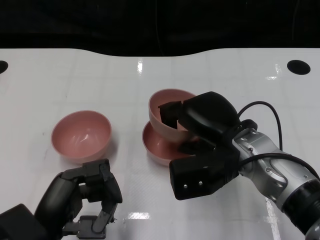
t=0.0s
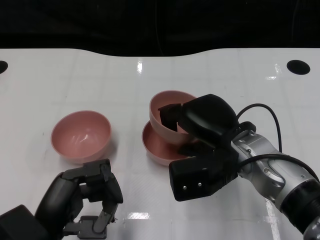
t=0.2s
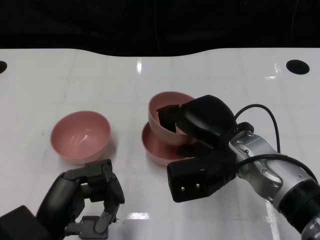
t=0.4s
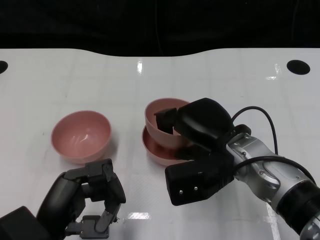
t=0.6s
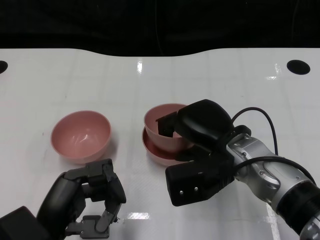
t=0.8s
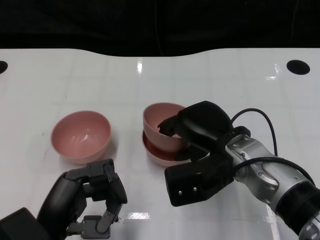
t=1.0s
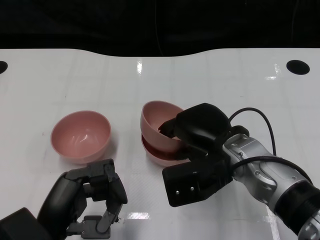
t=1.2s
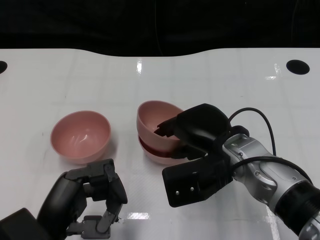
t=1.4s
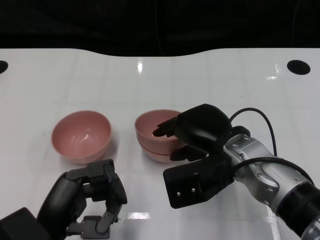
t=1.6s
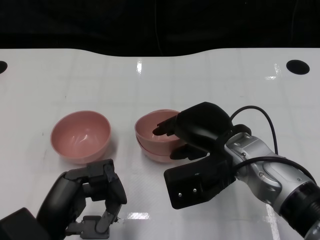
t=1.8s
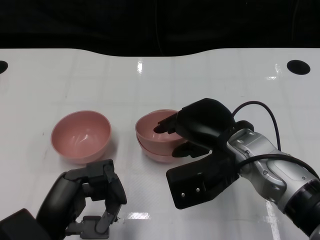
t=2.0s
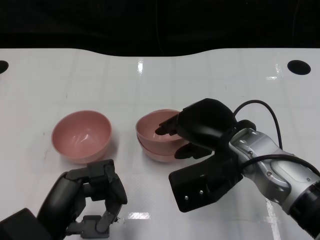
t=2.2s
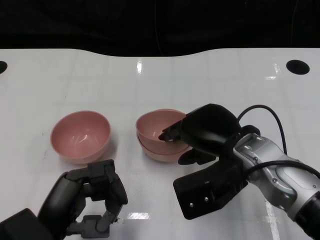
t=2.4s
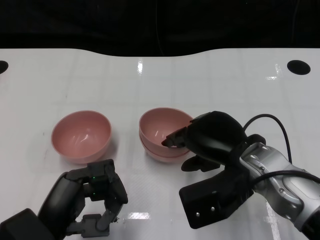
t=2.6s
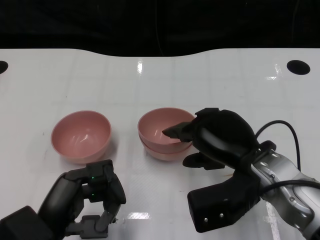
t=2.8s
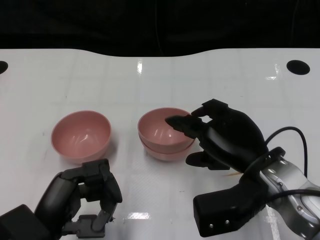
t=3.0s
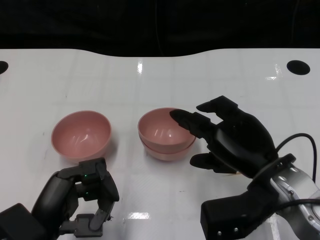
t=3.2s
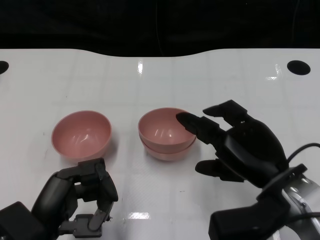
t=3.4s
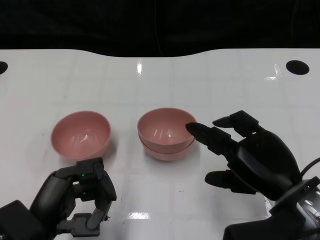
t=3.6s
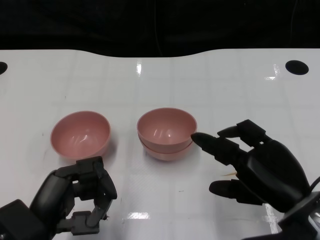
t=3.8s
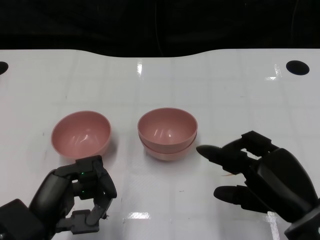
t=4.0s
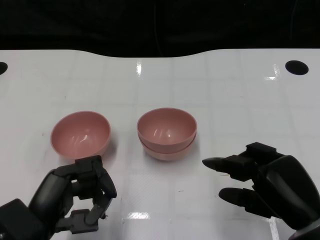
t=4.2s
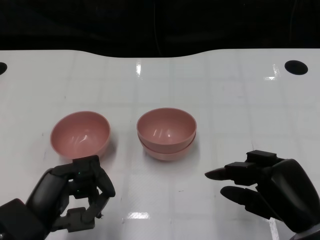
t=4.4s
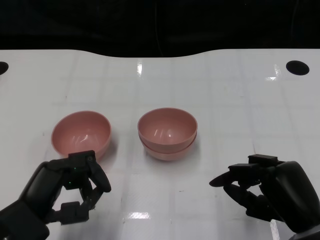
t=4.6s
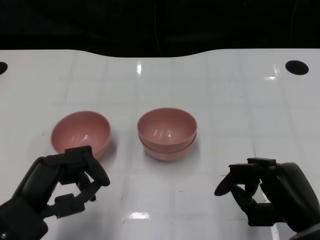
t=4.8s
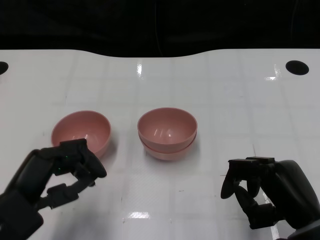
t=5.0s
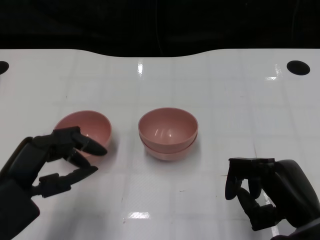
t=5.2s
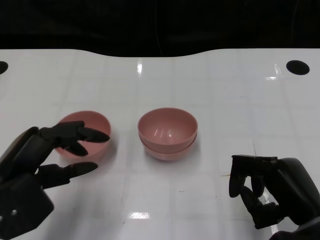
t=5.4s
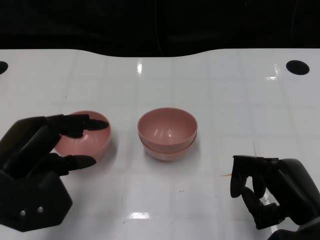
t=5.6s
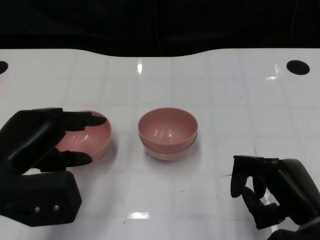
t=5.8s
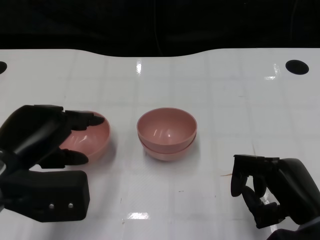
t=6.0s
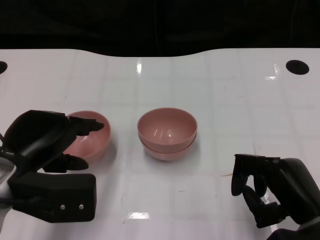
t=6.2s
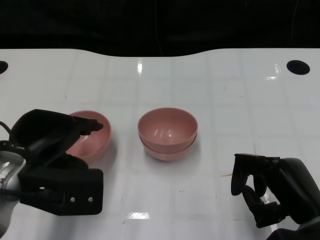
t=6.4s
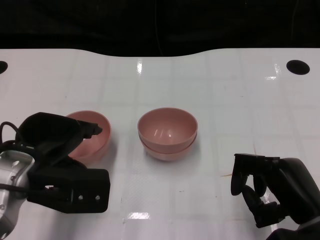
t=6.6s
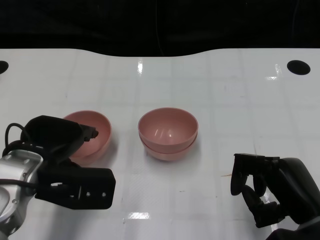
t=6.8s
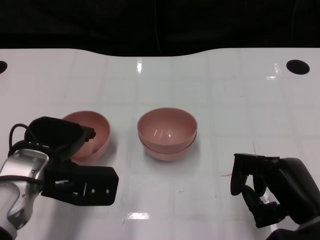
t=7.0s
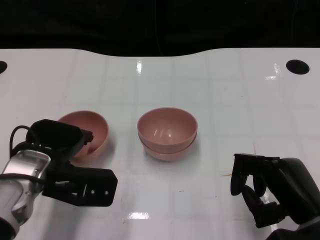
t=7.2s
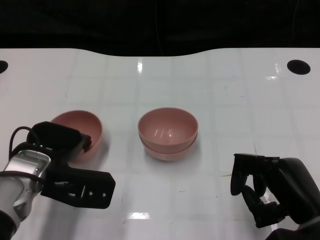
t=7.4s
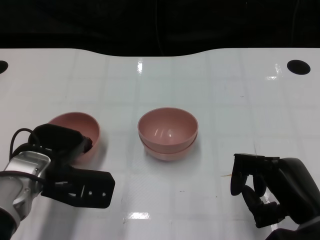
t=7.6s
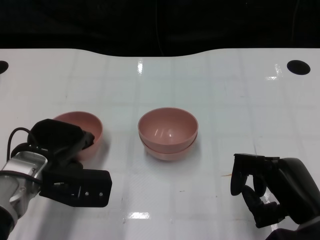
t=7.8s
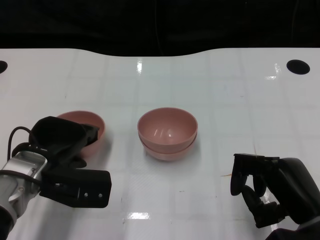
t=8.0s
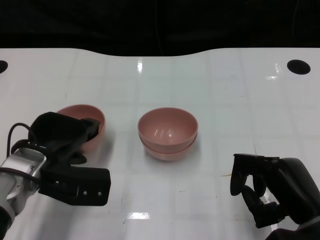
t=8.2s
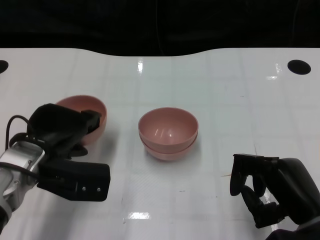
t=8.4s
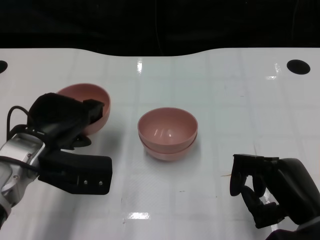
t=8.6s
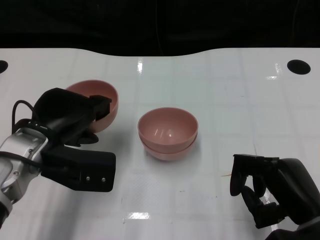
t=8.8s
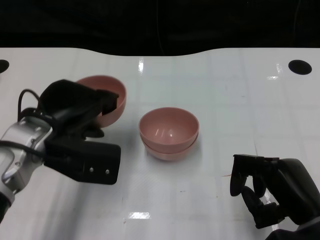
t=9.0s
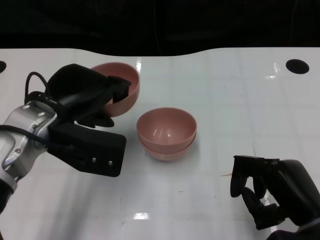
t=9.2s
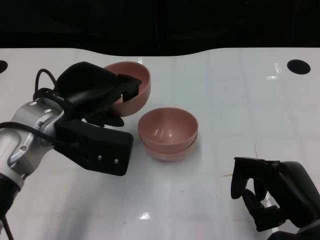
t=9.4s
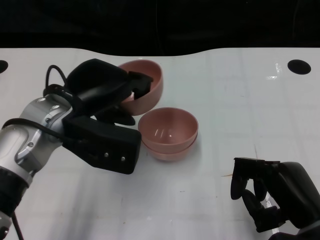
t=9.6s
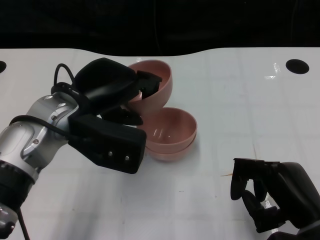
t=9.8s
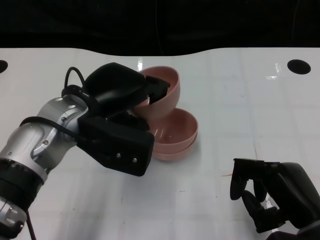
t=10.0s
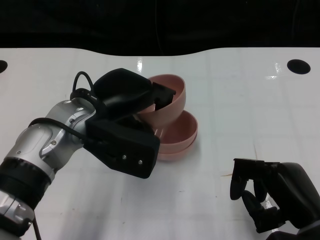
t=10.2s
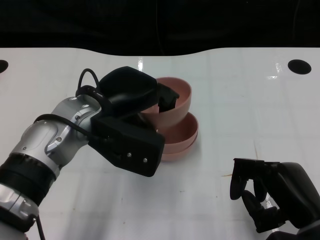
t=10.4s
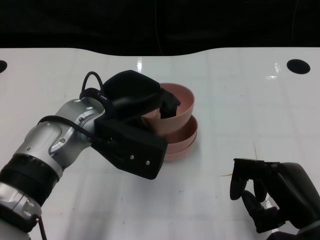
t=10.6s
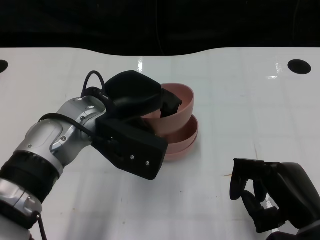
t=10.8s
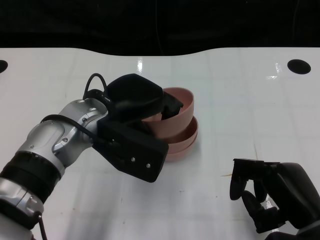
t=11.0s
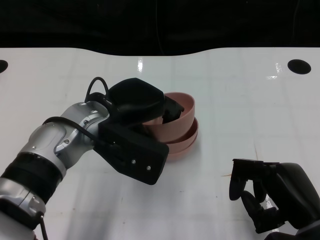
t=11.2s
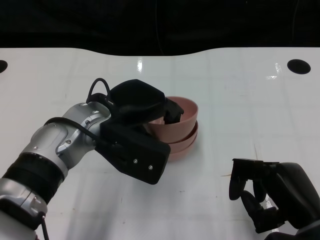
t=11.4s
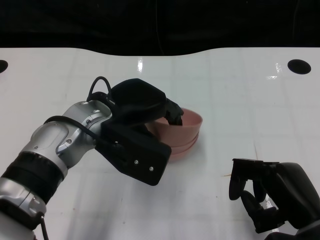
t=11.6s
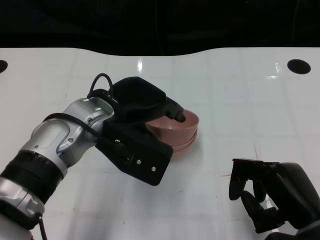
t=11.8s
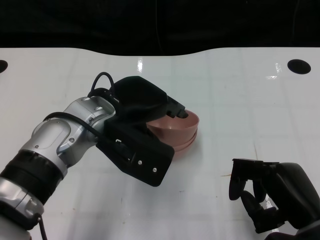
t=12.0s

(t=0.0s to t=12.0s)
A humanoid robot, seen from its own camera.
Task of the whole recording: Pick up the bowl on one side of the table and place it on top of the middle bowl, then pick up the bowl on the other side of the table and place it on top of the middle bowls.
Step, t=0.0s - t=3.0s: Place the bowl on the right onto the bowl in the middle with right gripper.
Step, t=3.2s - t=8.2s: Grasp the bowl on the left with the left gripper.
t=0.0s - t=1.6s: The hands stay close to where they were, moving slightly.
t=1.6s - t=3.0s: The right hand shifts by about 5 cm.
t=3.0s - t=4.4s: The right hand goes some 10 cm backward and to the right.
t=4.4s - t=6.0s: The left hand travels upward and forward by about 10 cm.
t=6.0s - t=7.6s: The left hand is displaced downward and forward by about 10 cm.
t=7.6s - t=9.0s: The left hand is displaced upward by roughly 5 cm.
t=9.0s - t=10.4s: The left hand is displaced to the right by about 5 cm.
t=10.4s - t=12.0s: The hands move only a little.

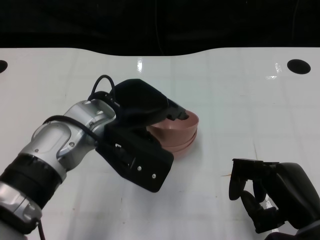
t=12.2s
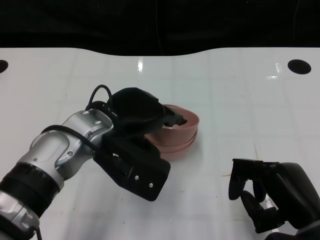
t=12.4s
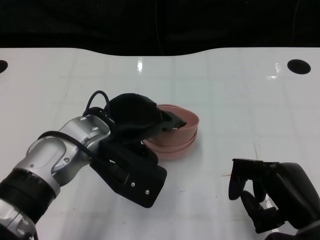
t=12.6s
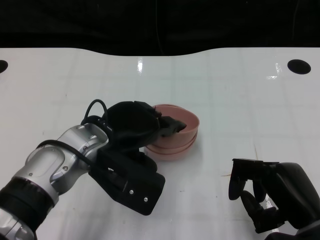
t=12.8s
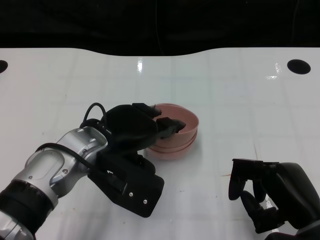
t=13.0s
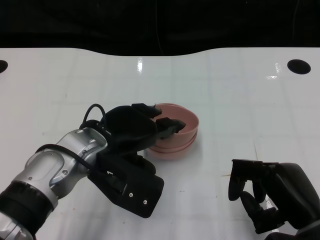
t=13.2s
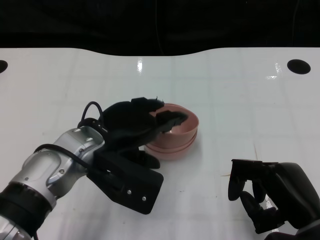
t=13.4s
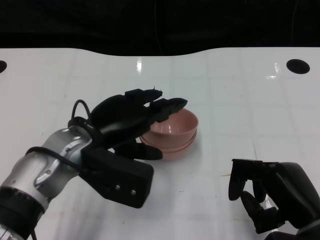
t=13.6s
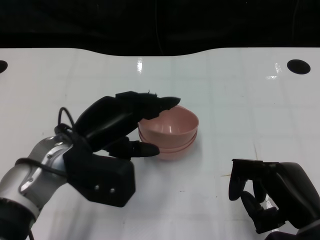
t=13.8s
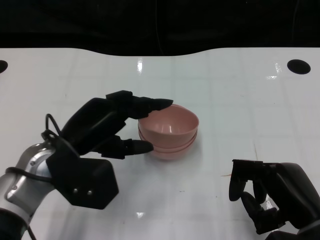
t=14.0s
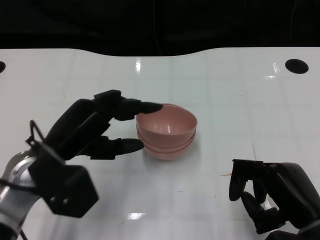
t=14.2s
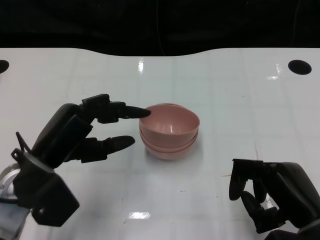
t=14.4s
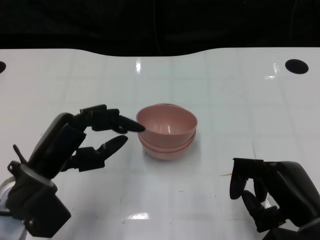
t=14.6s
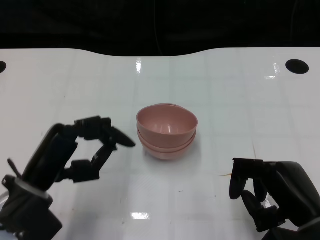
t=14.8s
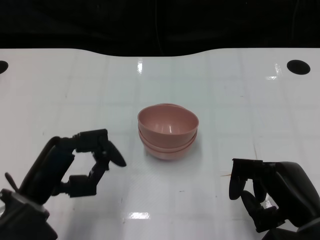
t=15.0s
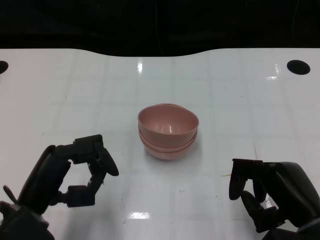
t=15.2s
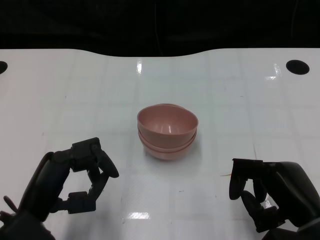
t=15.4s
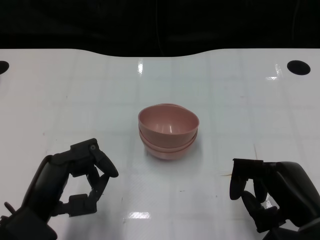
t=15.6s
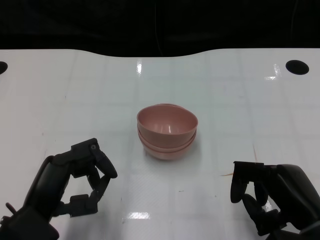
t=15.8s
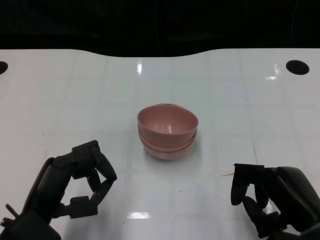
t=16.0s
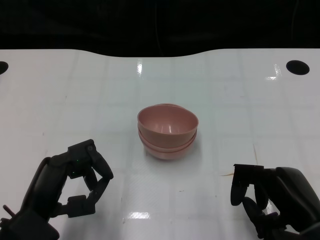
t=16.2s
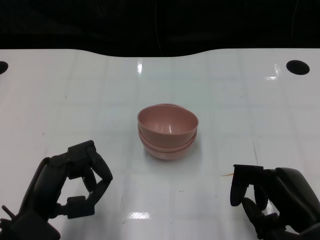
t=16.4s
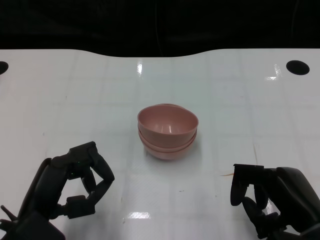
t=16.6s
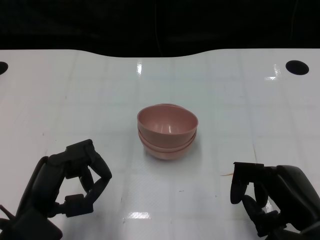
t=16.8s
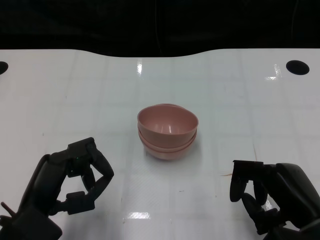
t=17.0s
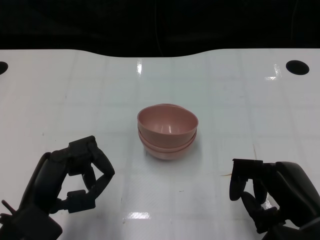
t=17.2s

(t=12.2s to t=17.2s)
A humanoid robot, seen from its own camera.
Task of the whole recording: Pick up the bowl on one side of the table and place it on top of the middle bowl, then pick up the bowl on the other side of the table and place it on top of the middle bowls.
t=12.2s - t=13.8s: The left hand shifts by roughly 5 cm.
t=13.8s - t=15.6s: The left hand heads backward and to the left, covering approximately 10 cm.
t=15.6s - t=17.2s: The hands move only a little.

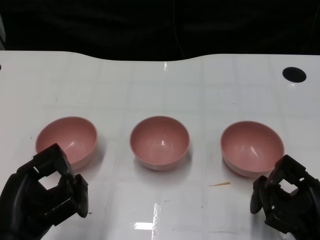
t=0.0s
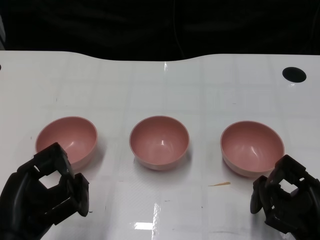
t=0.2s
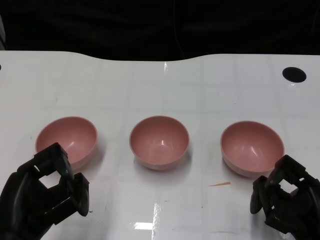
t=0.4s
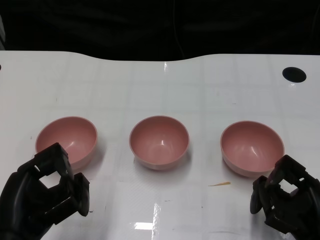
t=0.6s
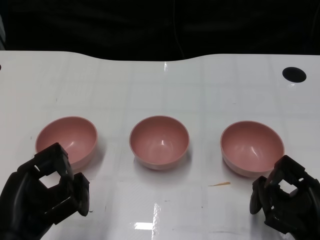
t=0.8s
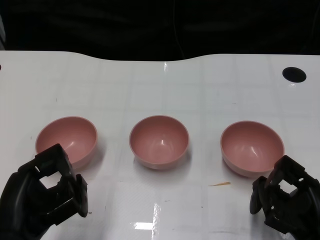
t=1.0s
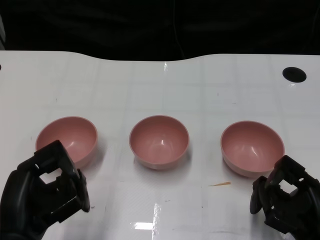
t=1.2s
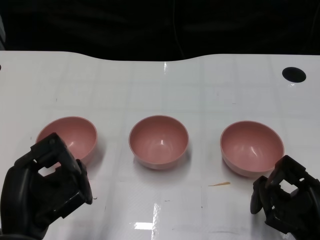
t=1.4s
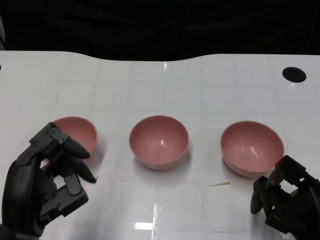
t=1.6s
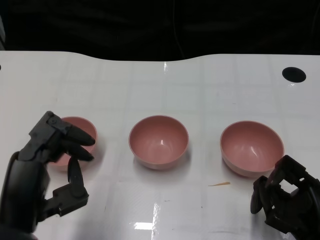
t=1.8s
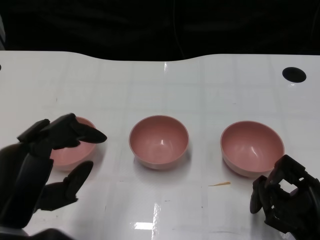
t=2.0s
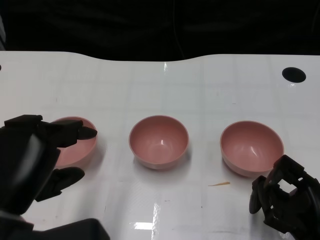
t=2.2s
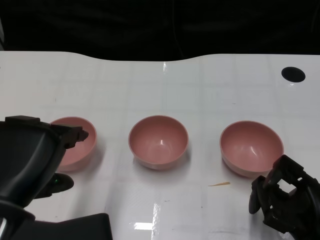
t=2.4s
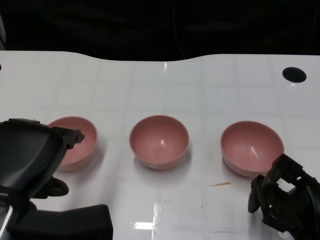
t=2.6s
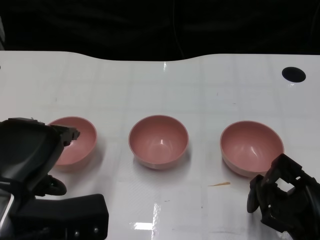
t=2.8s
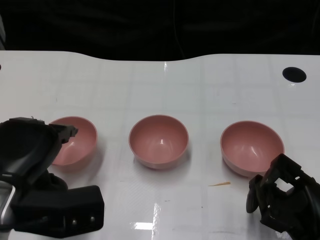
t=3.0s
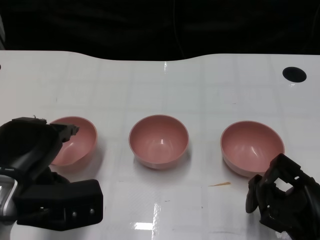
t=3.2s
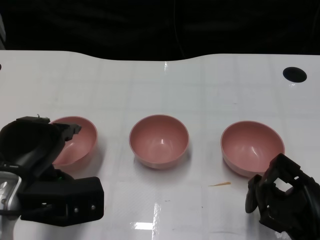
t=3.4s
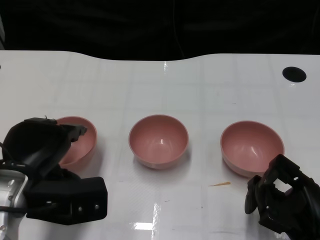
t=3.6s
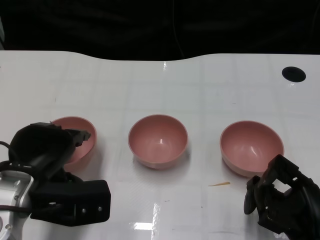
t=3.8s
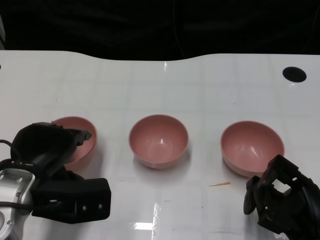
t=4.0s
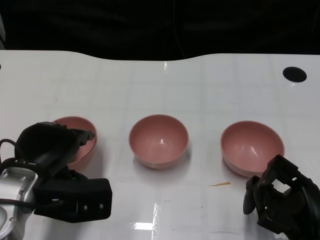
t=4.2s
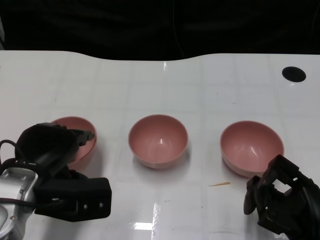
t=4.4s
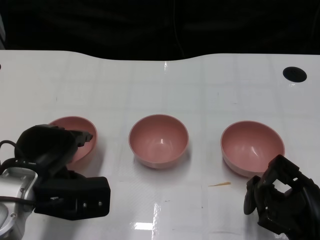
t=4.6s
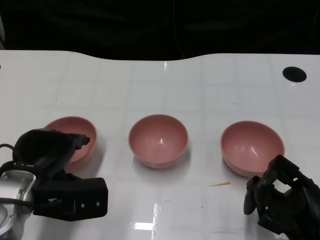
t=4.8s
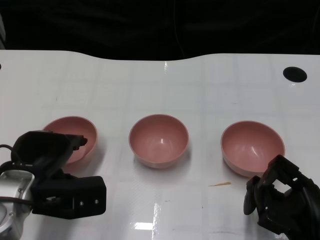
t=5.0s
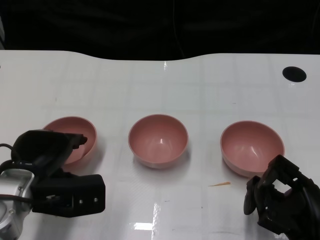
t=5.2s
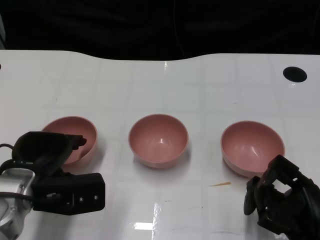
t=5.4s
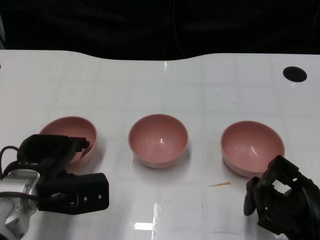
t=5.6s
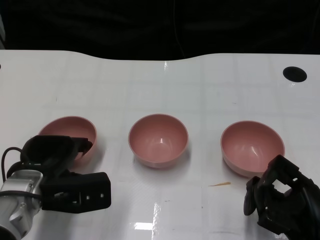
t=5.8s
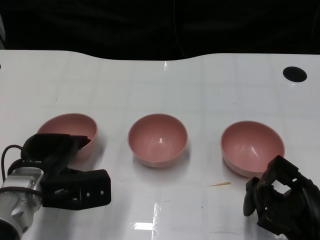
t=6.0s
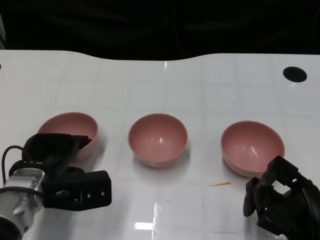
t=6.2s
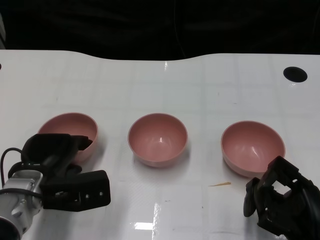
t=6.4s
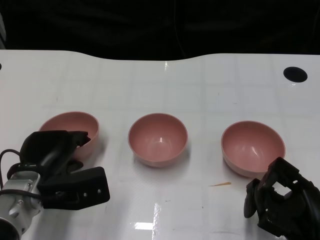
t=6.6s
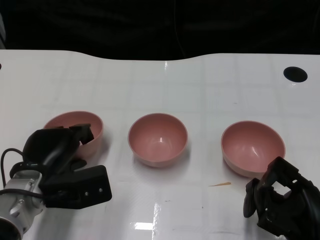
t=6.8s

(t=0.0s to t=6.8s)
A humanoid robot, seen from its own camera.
Task of the whole recording: Pick up the bowl on one side of the table and place it on top of the middle bowl, then pick up the bowl on the other side of the table and place it on top of the middle bowls.
t=1.4s - t=2.8s: The left hand travels upward by about 5 cm.
t=2.8s - t=4.0s: The left hand goes about 10 cm forward and downward.
t=4.0s - t=5.4s: There are only small adjustments of the hands.
t=5.4s - t=6.8s: The hands move only a little.
